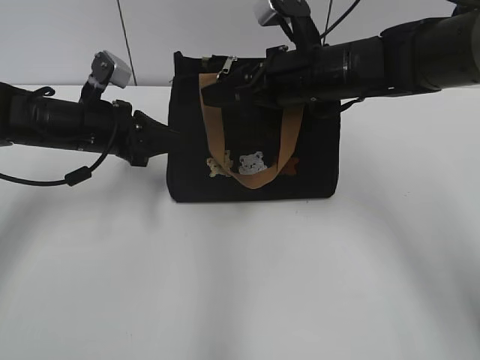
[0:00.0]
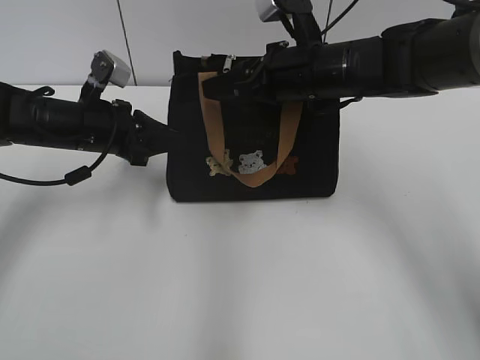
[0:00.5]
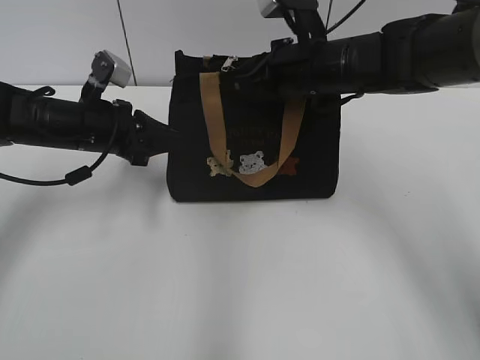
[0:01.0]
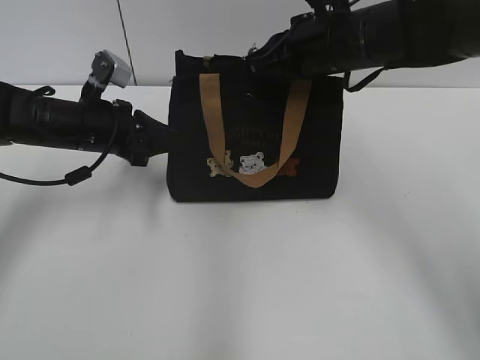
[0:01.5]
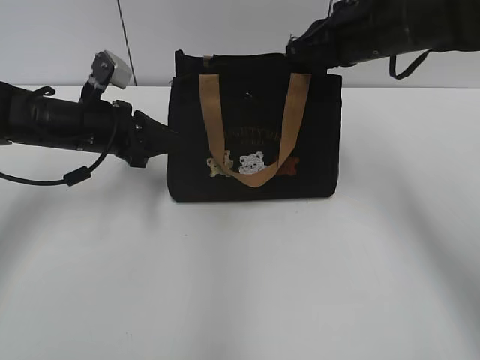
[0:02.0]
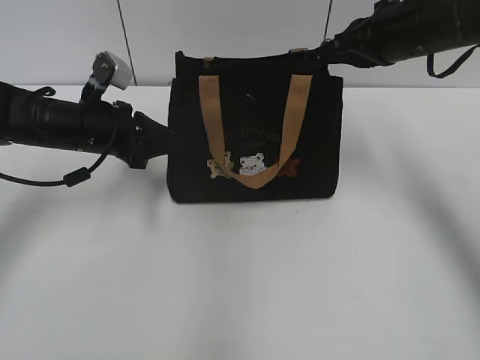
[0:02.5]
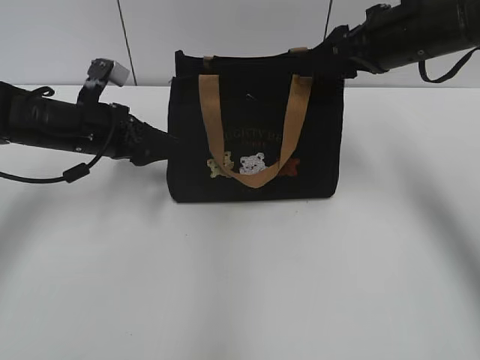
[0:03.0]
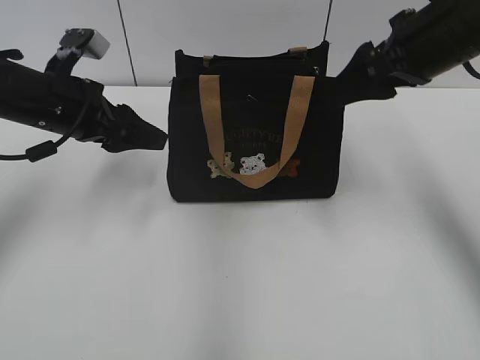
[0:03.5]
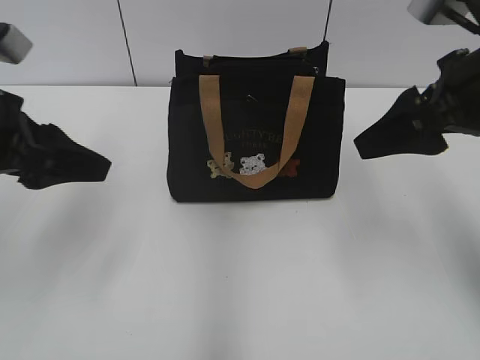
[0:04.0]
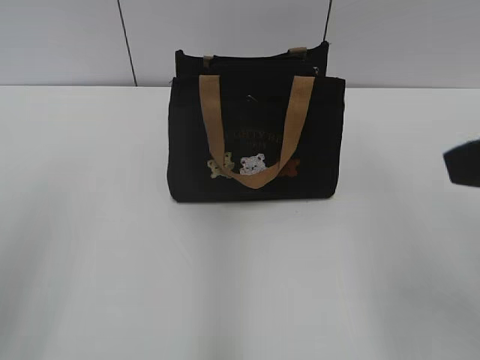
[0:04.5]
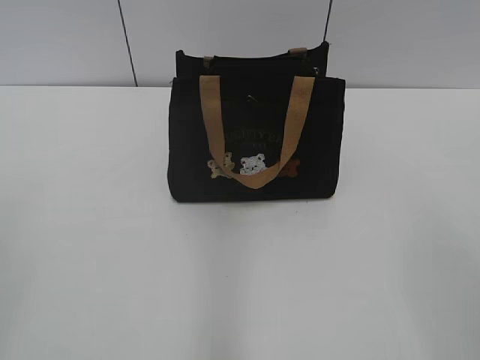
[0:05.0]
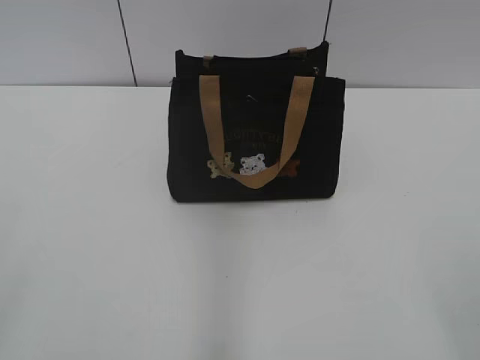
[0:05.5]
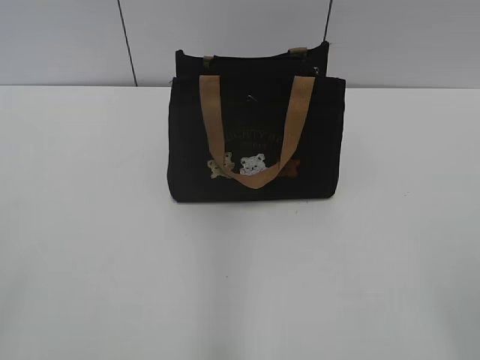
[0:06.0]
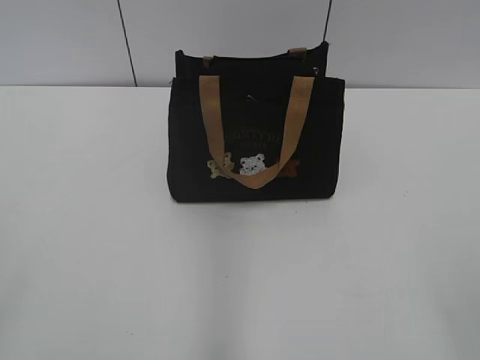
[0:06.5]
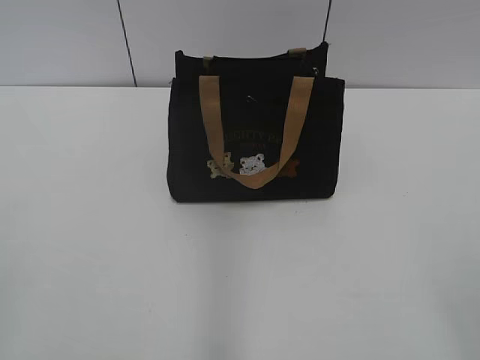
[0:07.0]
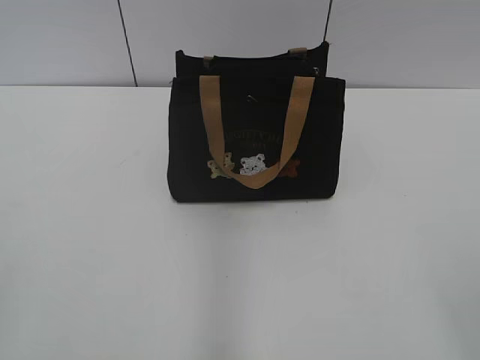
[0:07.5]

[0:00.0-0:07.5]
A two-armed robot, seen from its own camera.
Step, 0.0 to 2.5 s: Pull open the zipper with your right hand.
Step, 3.0 to 3.5 s: Hold the bag with your left hand.
0.0 to 2.0 s: The right gripper moves to the right and upward, some 10 cm, and closes its fingers.
2.0 to 4.0 s: The right gripper heads backward and to the right, covering about 15 cm, and opens. The left gripper is displaced backward and upward by roughly 15 cm, and opens up.
4.0 to 5.5 s: Both grippers travel together backward, some 25 cm.

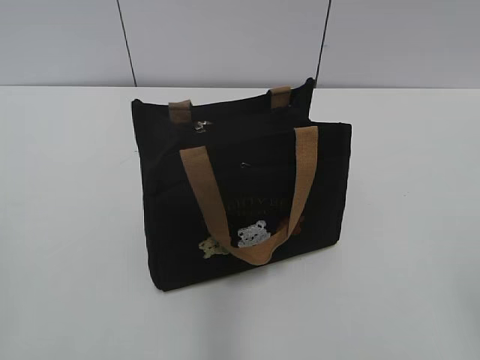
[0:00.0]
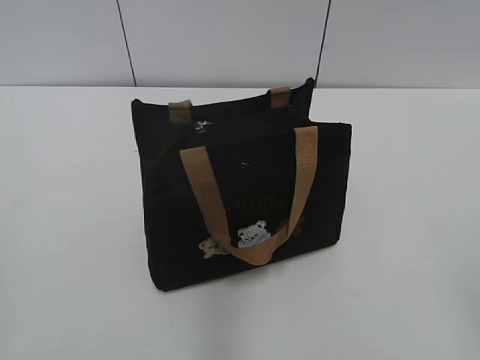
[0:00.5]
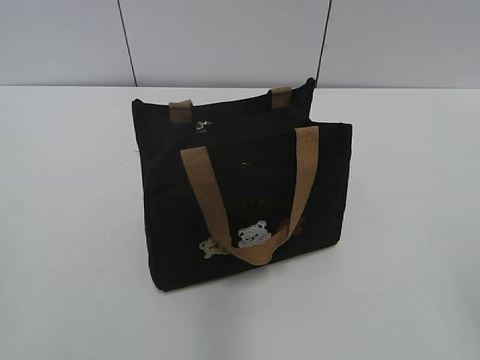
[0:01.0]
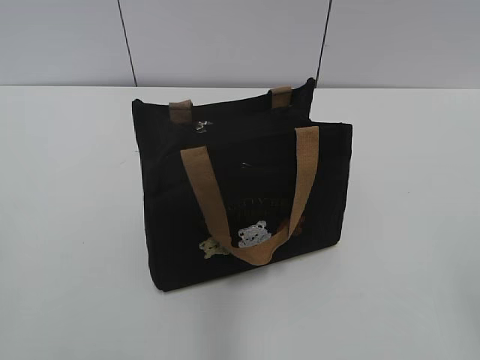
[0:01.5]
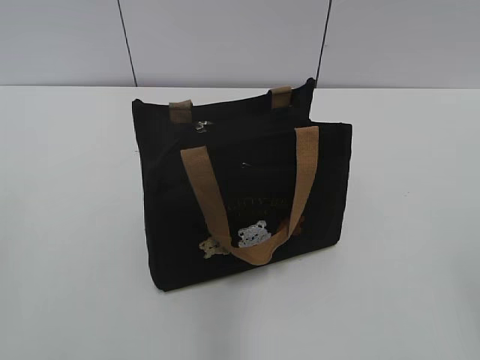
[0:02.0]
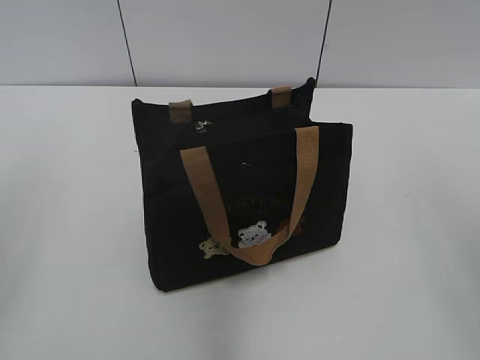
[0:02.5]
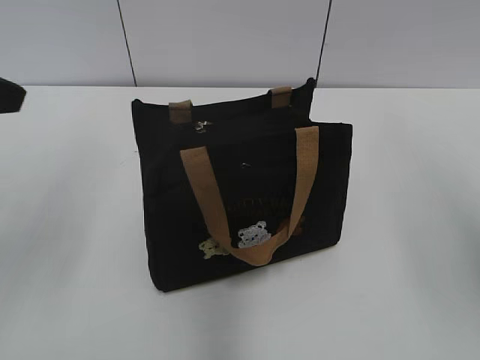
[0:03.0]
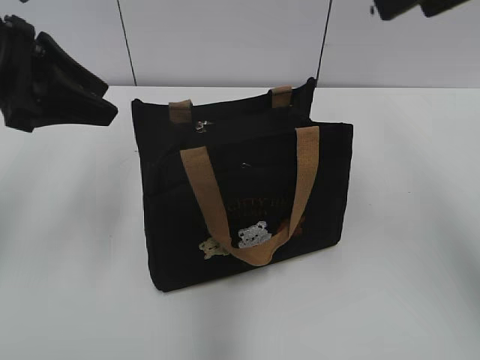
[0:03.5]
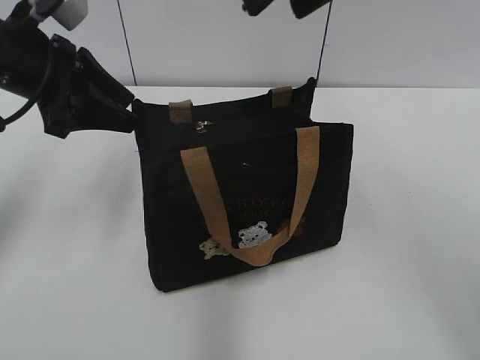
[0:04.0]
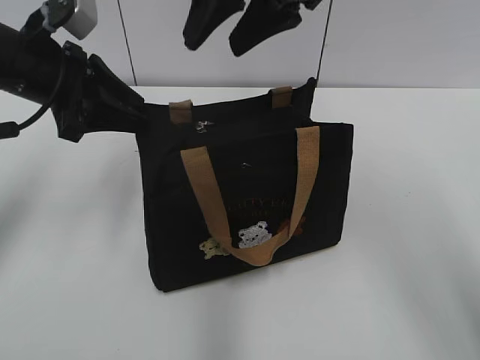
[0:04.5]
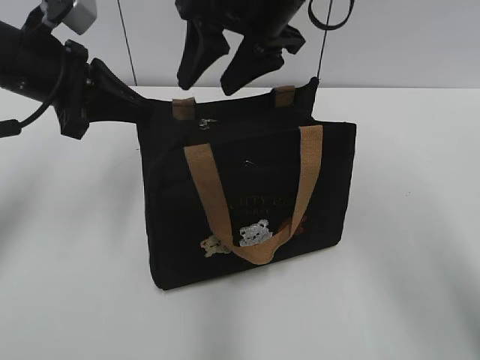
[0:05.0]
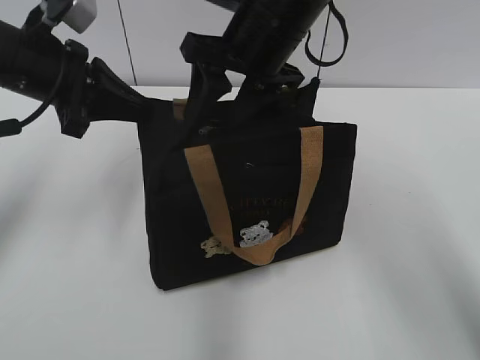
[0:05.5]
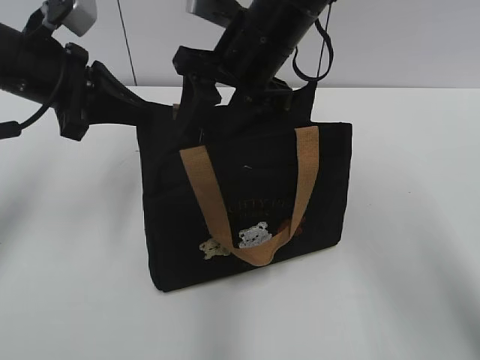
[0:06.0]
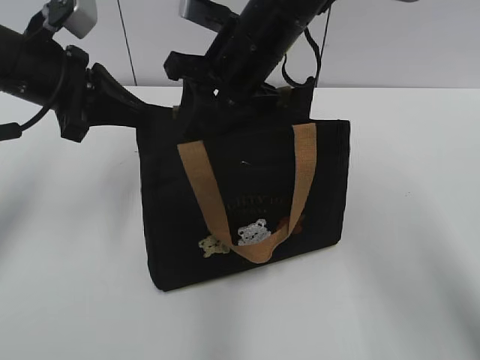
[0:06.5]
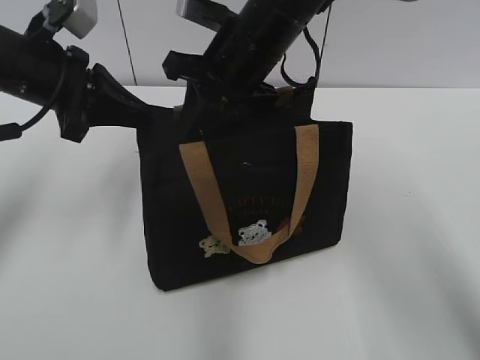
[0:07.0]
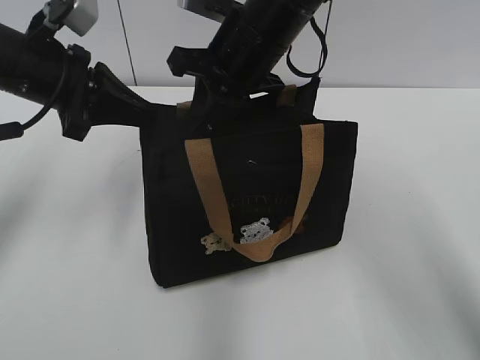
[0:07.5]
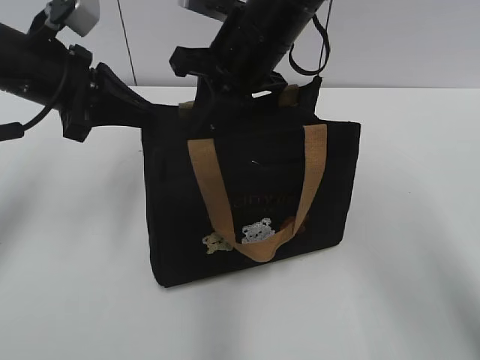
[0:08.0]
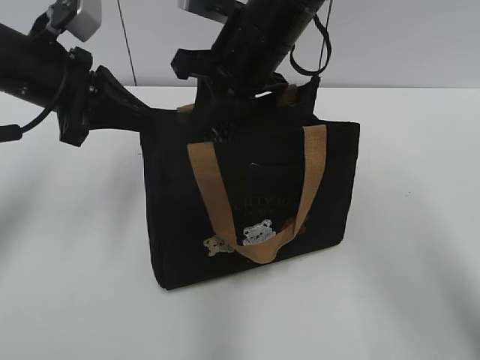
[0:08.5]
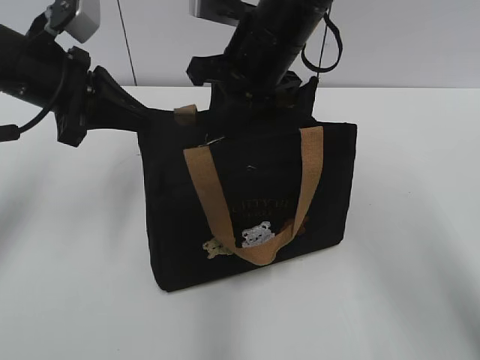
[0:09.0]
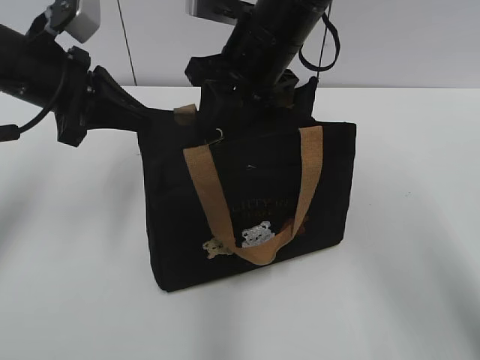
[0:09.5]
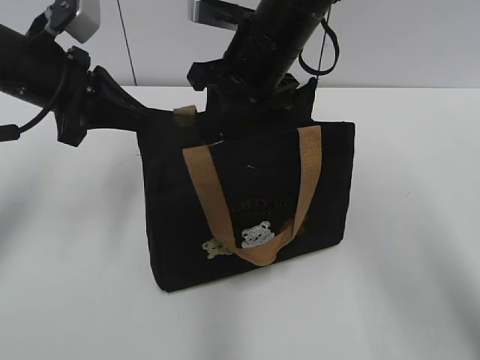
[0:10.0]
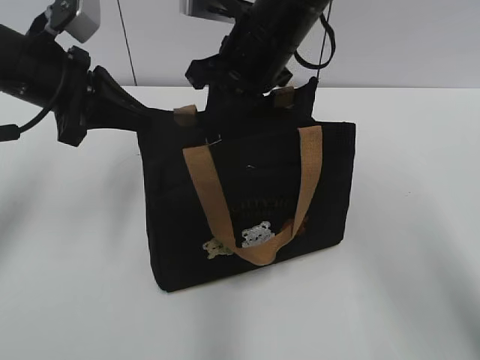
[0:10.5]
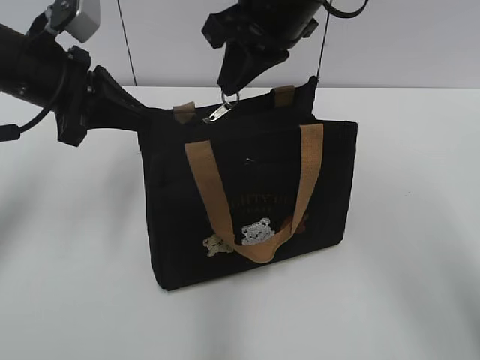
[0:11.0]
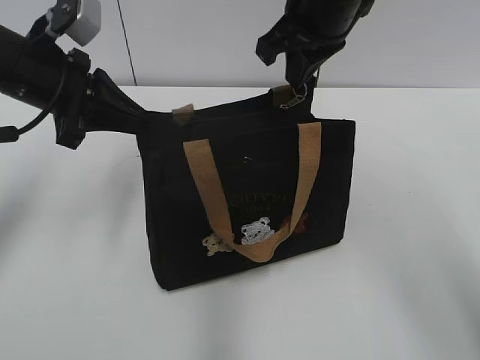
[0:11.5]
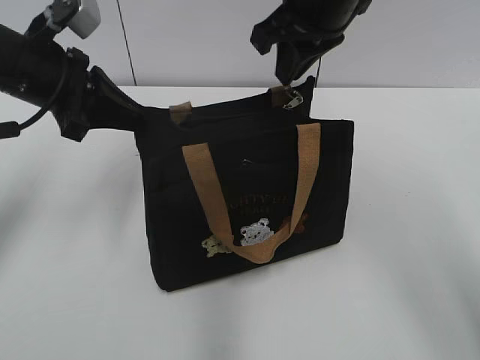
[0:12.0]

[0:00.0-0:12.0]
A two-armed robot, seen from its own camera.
Step, 0.0 to 12.0 s: Pull open the zipper with your right hand.
2.0 to 4.0 s: The right gripper goes approximately 35 cm forward and to the left. The left gripper heads forward, covering about 30 cm.
4.0 to 6.0 s: The left gripper closes up, while the right gripper moves downward, to the left and forward, about 20 cm.
6.0 to 8.0 s: The right gripper closes.
8.0 to 10.0 s: The right gripper opens up.
10.0 to 12.0 s: The right gripper heads upward, covering some 5 cm, and closes its fingers.

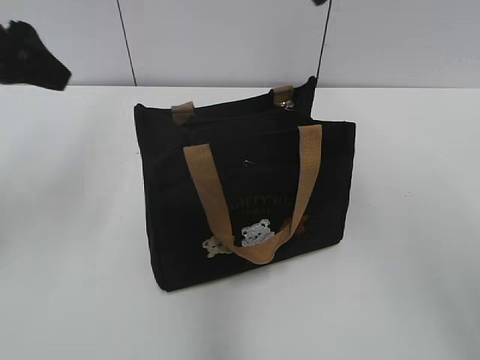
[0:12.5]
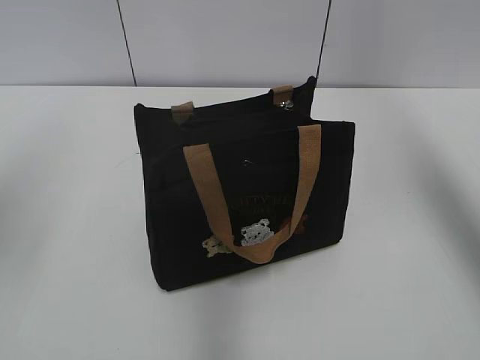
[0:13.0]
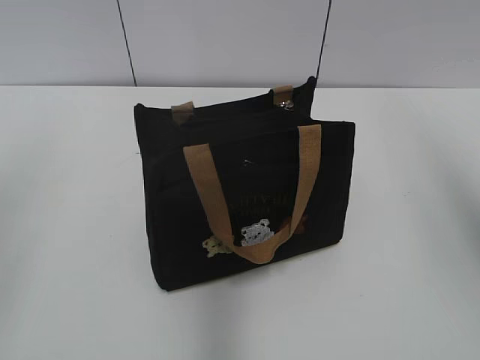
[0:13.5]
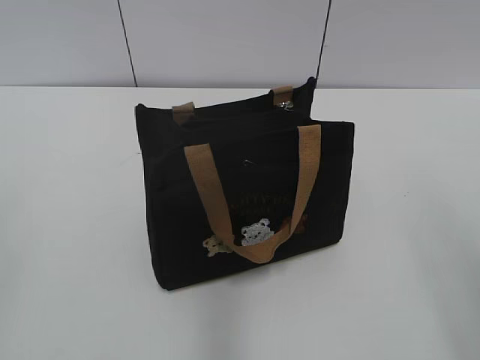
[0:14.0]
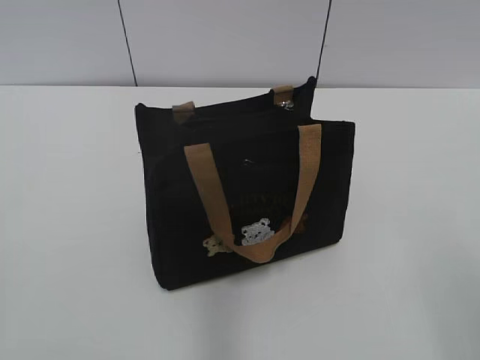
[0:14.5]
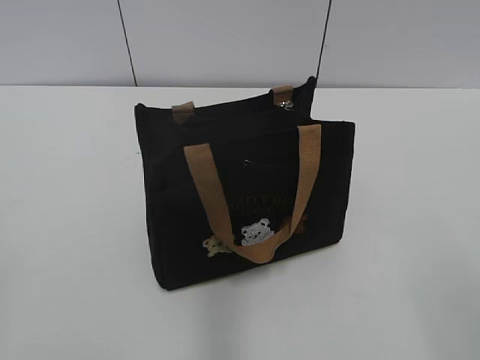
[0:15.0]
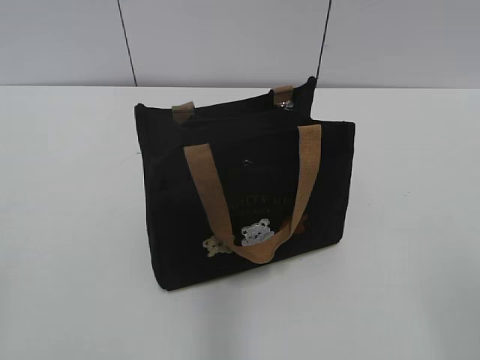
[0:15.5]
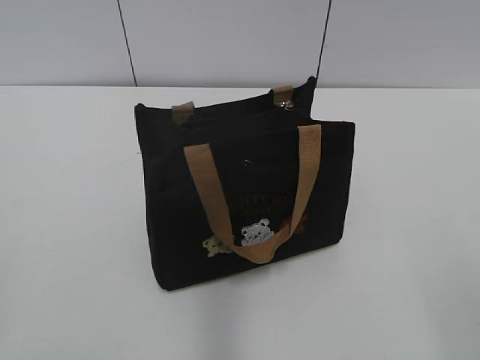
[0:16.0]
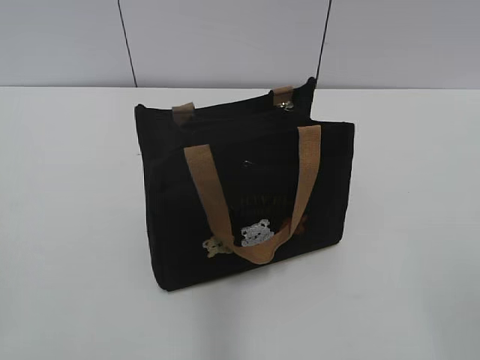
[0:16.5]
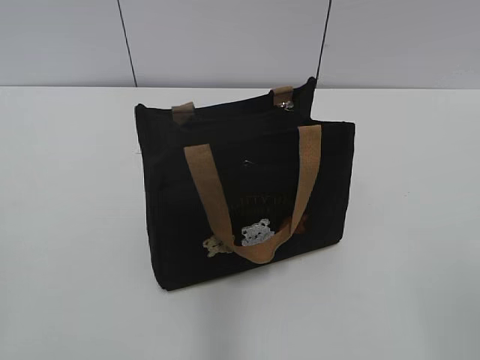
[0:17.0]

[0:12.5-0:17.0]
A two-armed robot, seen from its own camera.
12.5 to 14.5 s: The left gripper goes approximately 30 cm backward.

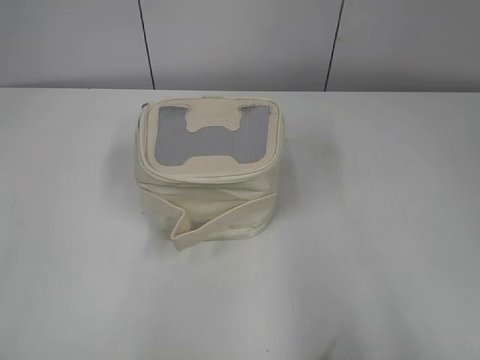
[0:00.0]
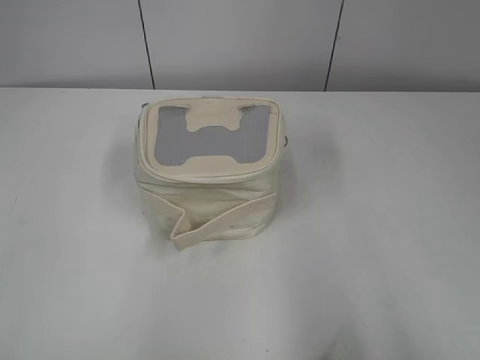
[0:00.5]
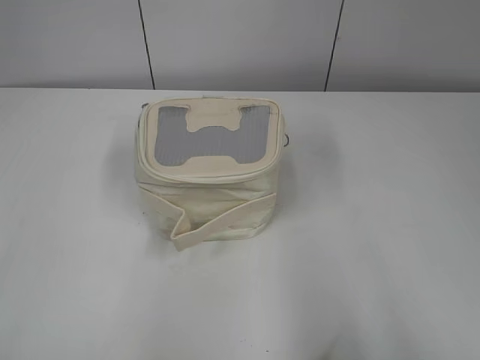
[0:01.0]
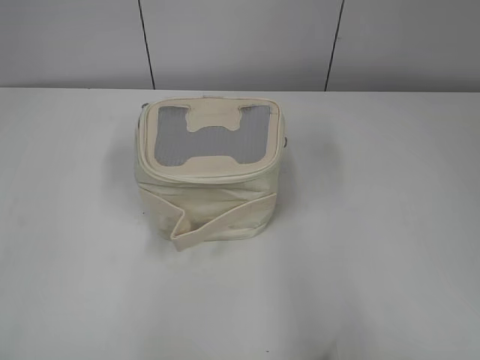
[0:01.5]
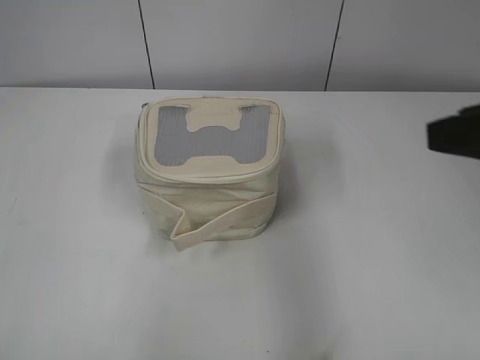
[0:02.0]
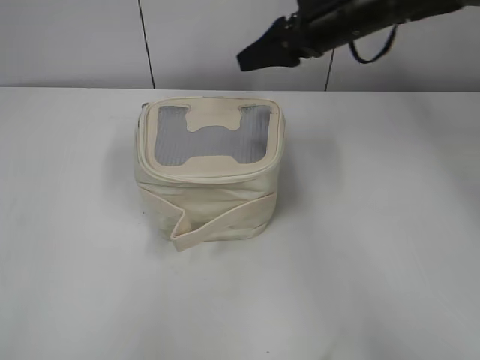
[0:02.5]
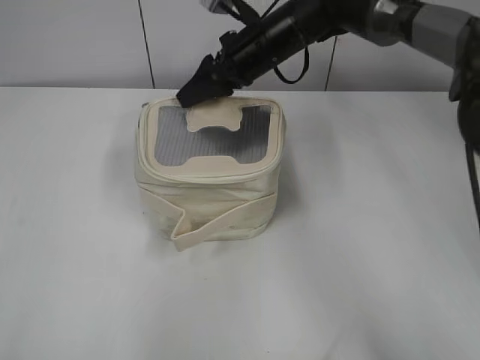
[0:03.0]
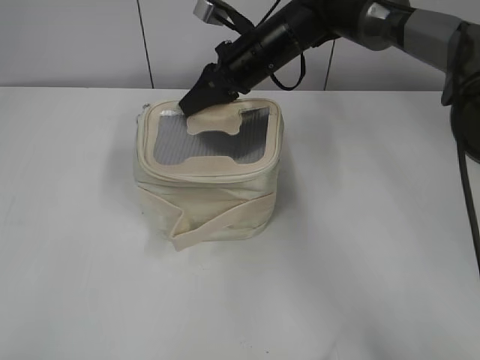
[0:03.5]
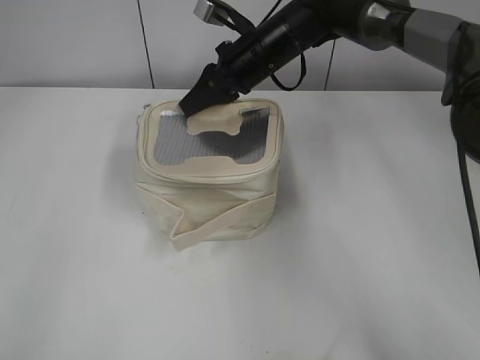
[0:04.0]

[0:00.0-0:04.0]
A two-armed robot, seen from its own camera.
2.0 to 4.0 s: The left gripper shifts approximately 25 cm forward and to the right, while the right gripper moves forward, to the left and downward, some 40 cm, and closes.
